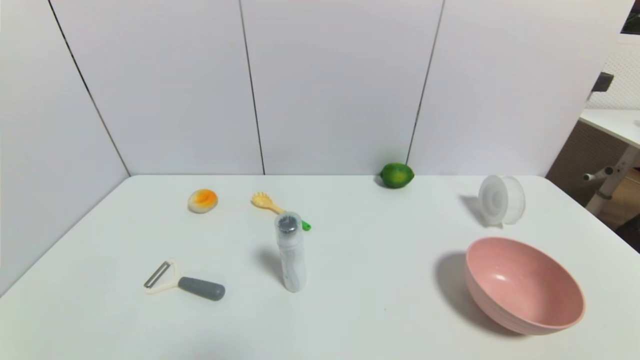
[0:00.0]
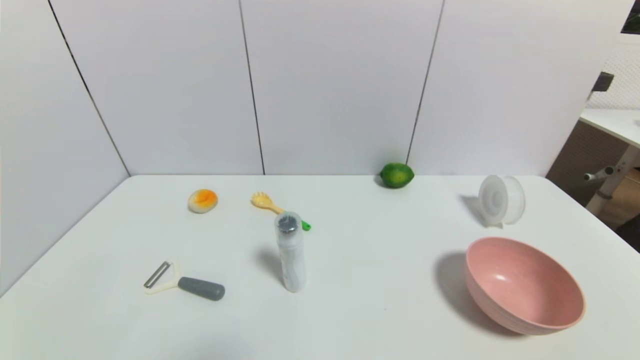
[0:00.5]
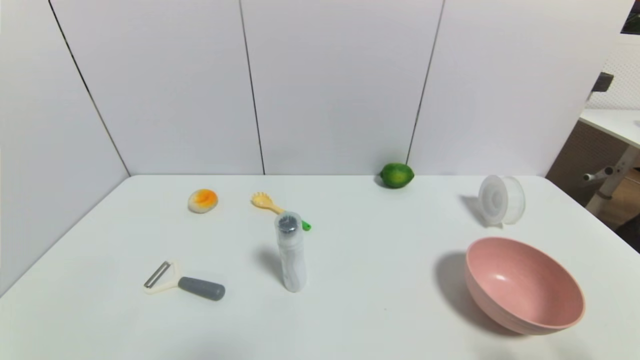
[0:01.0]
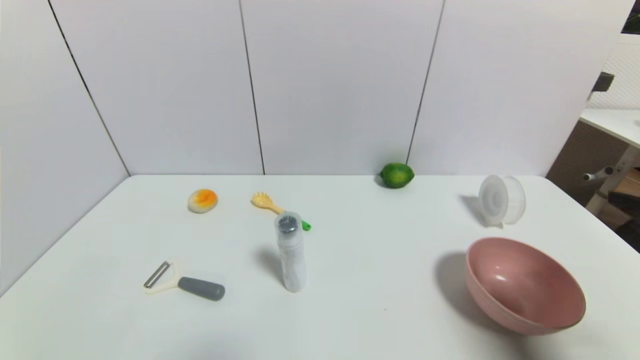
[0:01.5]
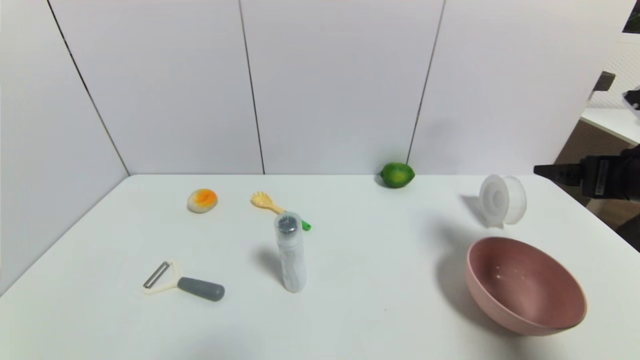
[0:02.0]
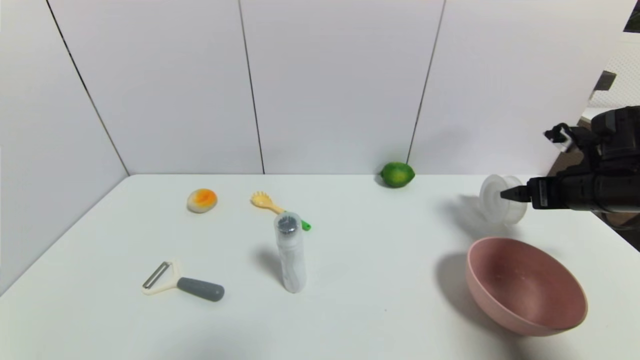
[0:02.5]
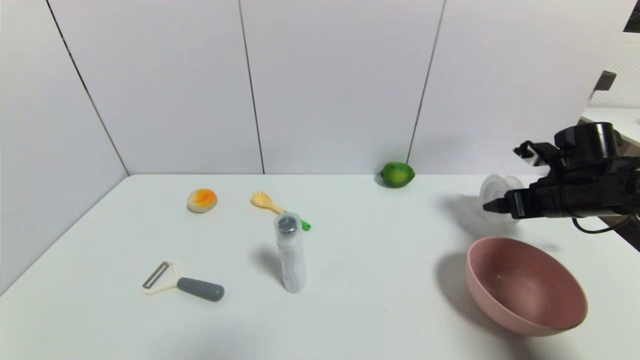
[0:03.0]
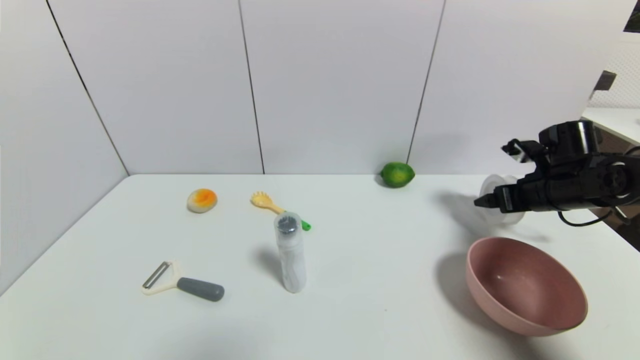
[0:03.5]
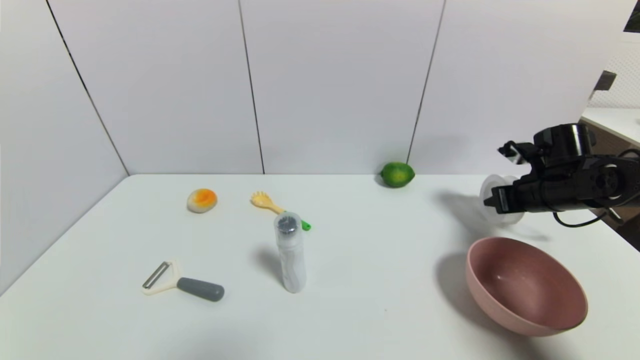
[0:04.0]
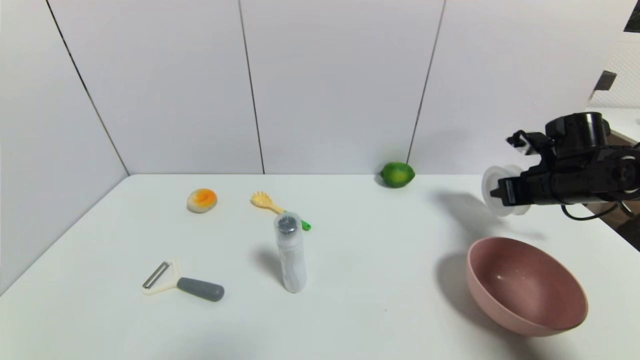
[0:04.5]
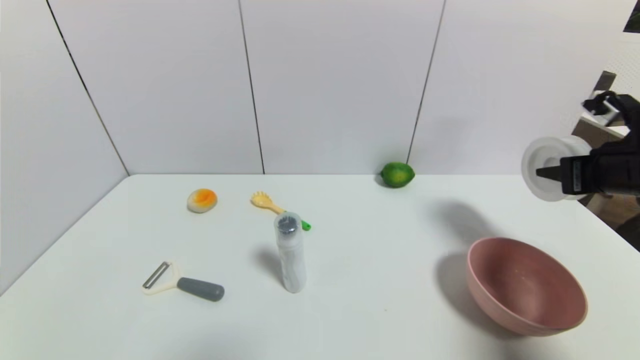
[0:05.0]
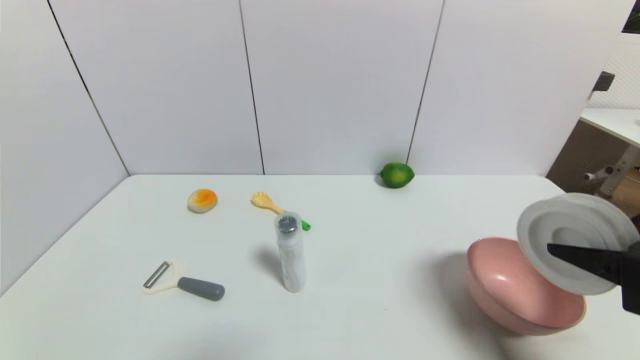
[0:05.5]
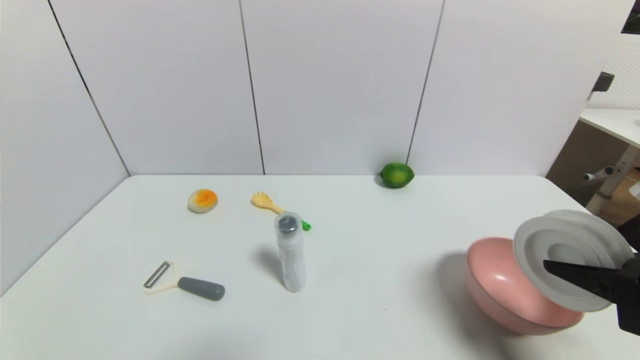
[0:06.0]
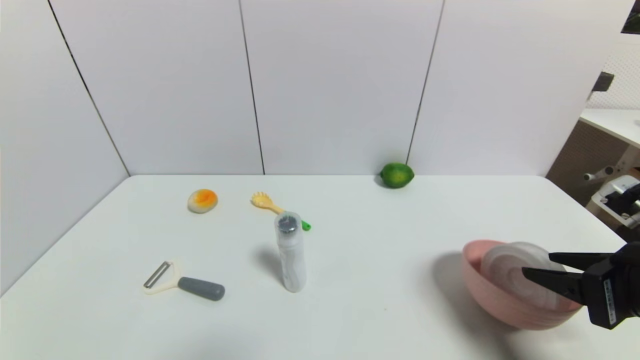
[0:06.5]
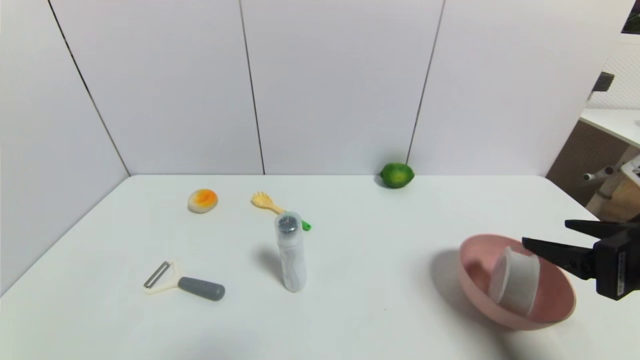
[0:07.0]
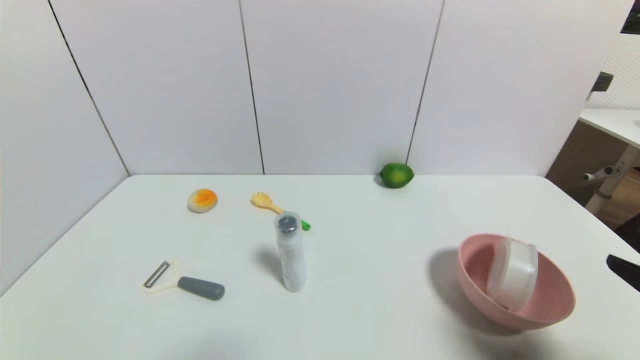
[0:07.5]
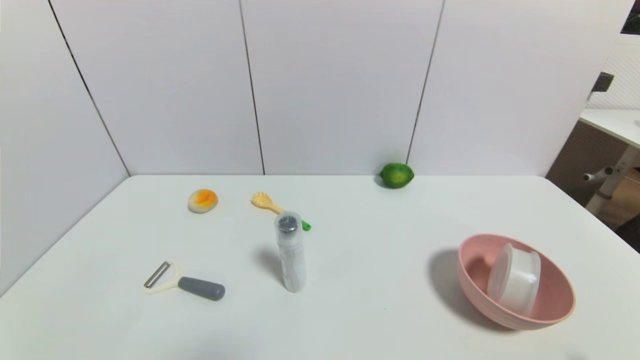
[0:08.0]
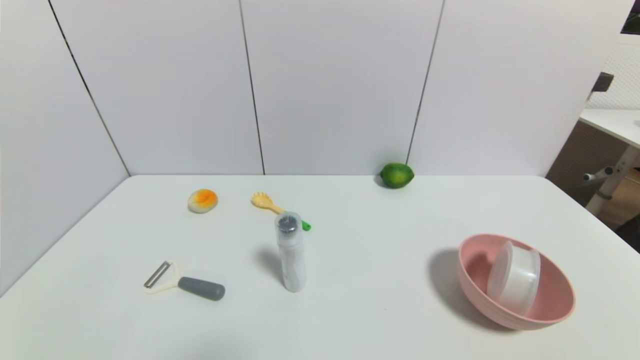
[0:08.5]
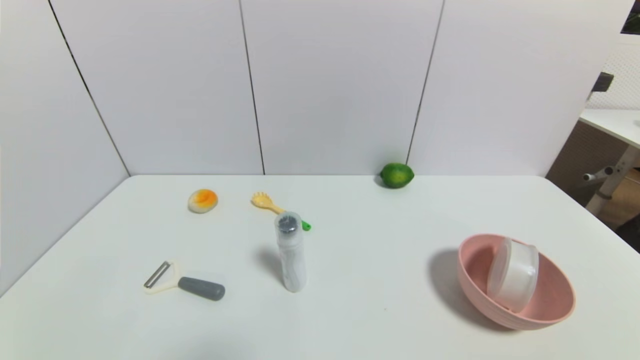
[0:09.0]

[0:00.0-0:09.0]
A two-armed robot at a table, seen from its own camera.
Task of the whole recording: use a gripper to pick the target object and place on the pink bowl.
Step, 0:00.0 to 0:04.0: Grasp the tape with the right gripper.
Step, 0:04.5 to 0:06.5: Place the tape on the pink bowl with the right gripper.
0:00.0 to 0:02.0: The right gripper goes roughly 30 cm forward and upward.
0:02.0 to 0:04.5: The right gripper travels forward and downward by approximately 15 cm, and closes its fingers.
0:04.5 to 0:07.0: The right gripper travels backward by some 20 cm, and opens up.
0:07.0 to 0:09.0: The right gripper is displaced backward and downward by approximately 20 cm.
